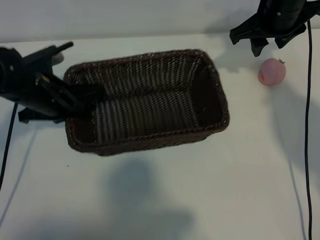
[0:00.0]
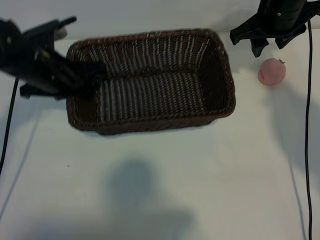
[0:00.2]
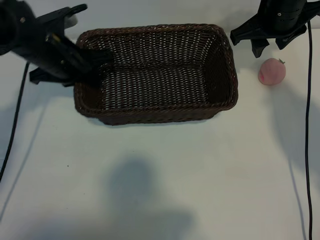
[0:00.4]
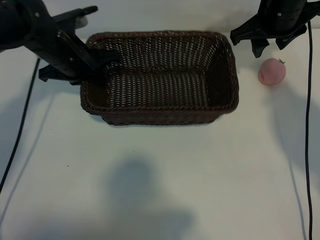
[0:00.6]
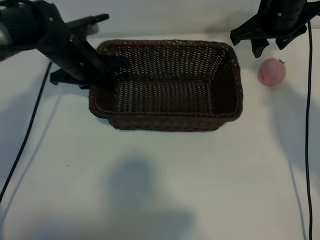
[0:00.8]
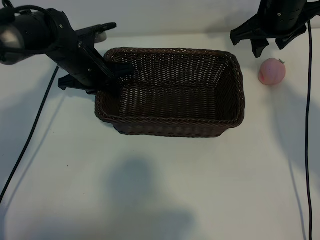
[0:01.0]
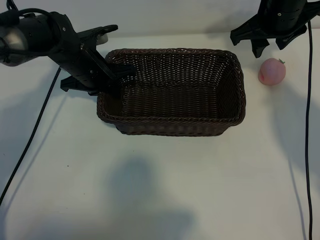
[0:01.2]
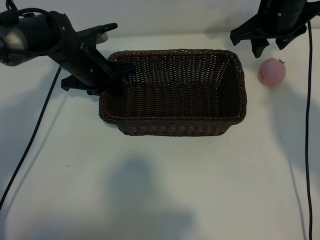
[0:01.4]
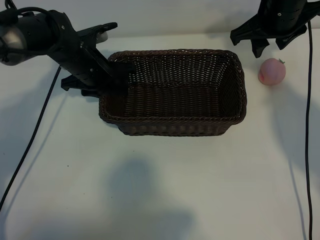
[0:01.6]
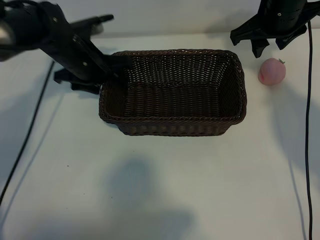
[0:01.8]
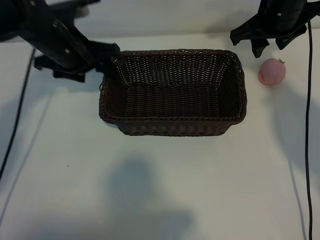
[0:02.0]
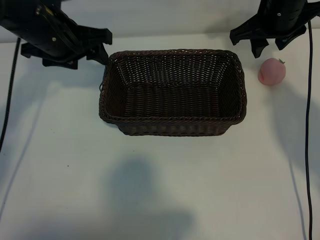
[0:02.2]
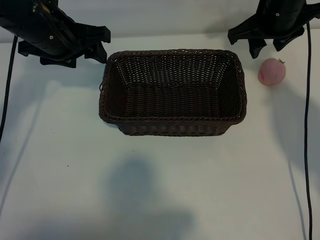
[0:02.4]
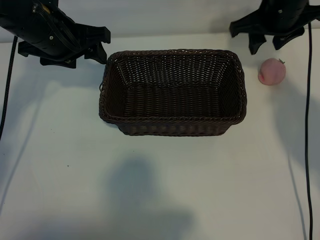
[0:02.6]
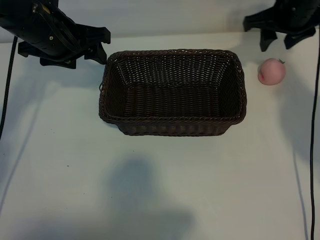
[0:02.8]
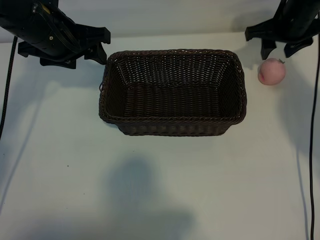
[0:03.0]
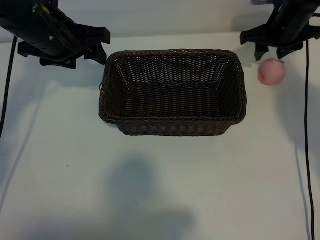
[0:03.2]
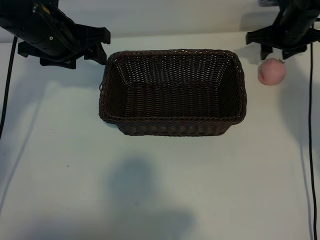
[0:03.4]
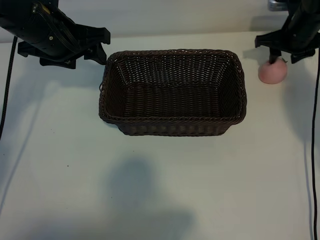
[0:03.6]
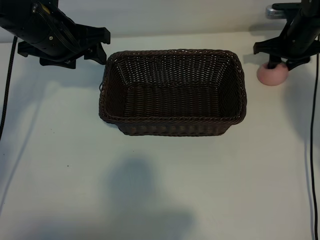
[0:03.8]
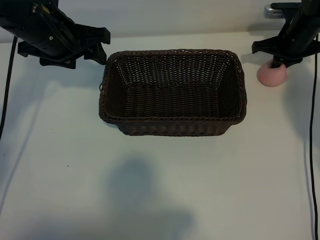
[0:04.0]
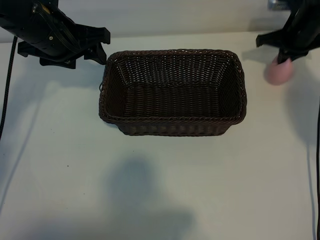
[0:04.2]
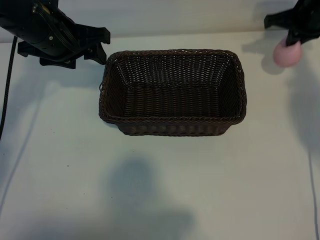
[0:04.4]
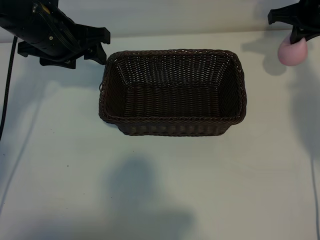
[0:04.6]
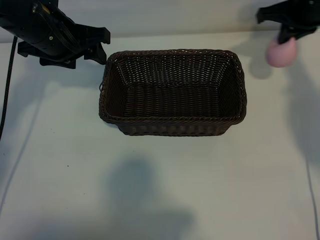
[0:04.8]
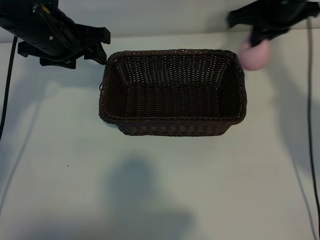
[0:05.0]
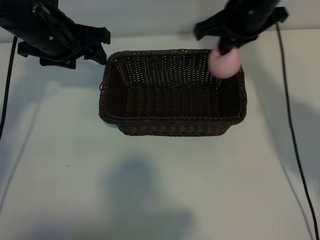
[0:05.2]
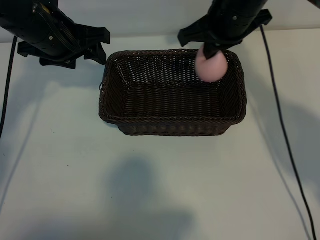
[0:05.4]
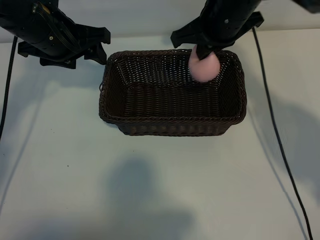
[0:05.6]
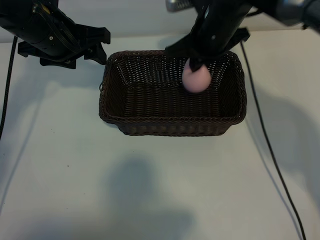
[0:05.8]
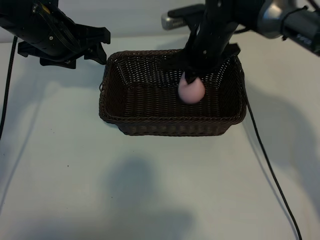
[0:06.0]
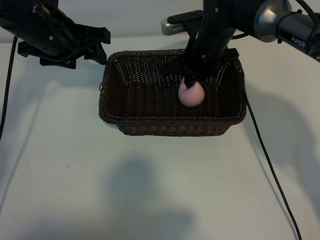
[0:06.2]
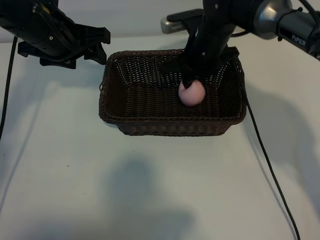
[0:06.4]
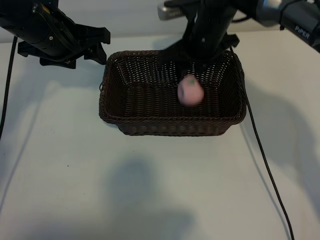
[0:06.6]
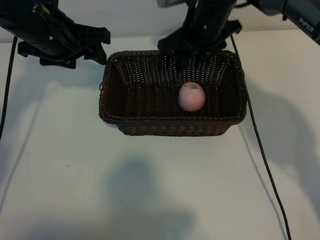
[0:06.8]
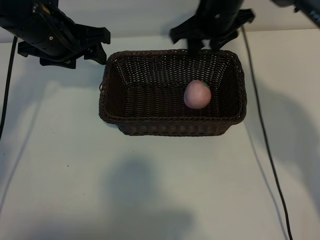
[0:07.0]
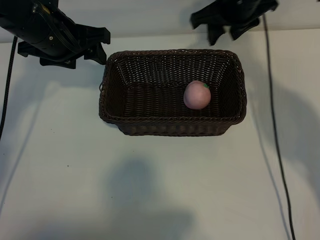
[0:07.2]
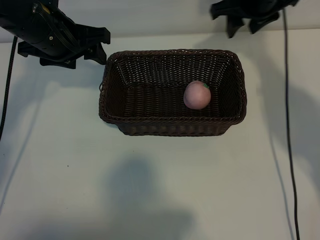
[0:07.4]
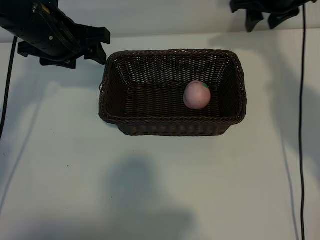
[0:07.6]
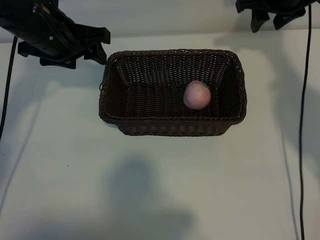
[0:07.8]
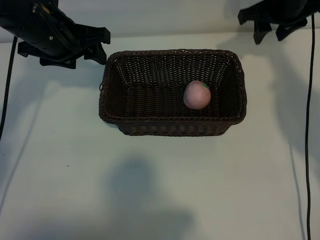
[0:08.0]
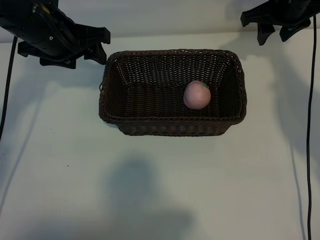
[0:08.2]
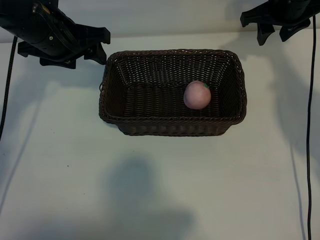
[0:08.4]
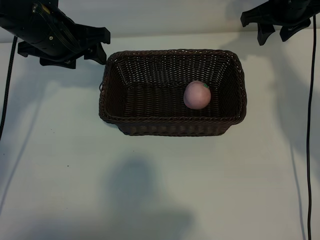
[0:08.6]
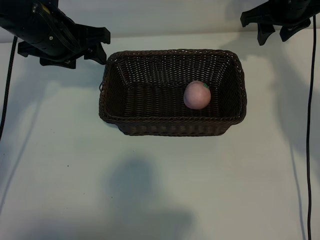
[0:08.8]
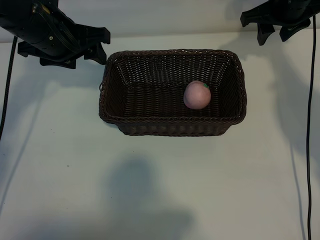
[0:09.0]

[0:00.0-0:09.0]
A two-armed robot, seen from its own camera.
Task of the whole recording: pick up the peach and put it into the basket.
Step, 0:00.0 to 0:01.8: Place the basket in the center of view with left gripper.
Step, 0:02.0 to 0:04.0: Grasp the peach with right gripper.
Step, 0:04.2 to 0:06.6: Place the peach in the basket with right gripper.

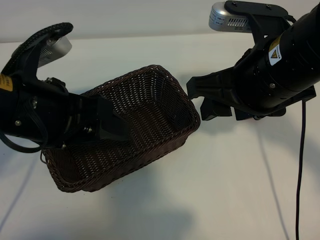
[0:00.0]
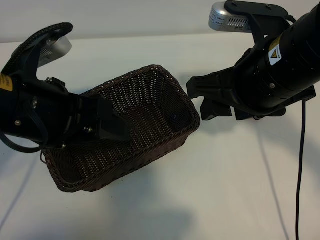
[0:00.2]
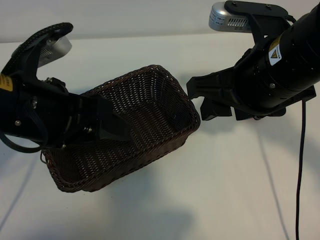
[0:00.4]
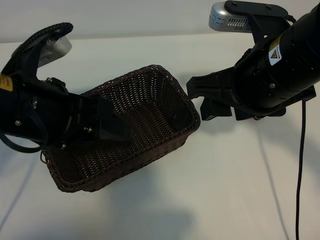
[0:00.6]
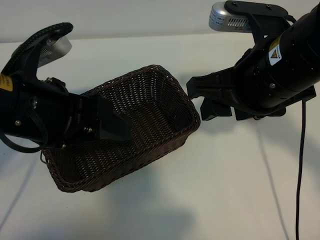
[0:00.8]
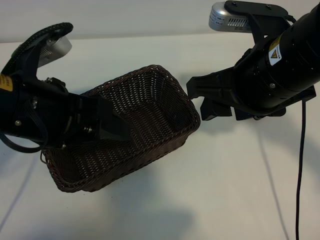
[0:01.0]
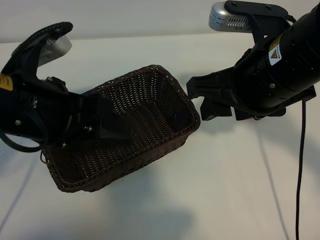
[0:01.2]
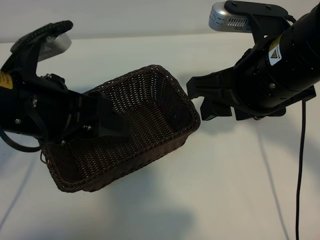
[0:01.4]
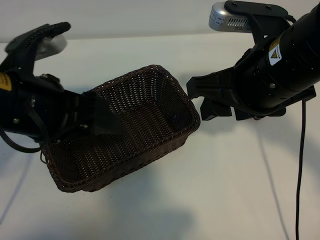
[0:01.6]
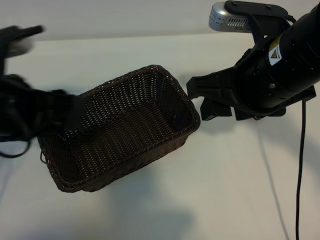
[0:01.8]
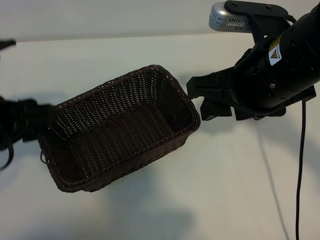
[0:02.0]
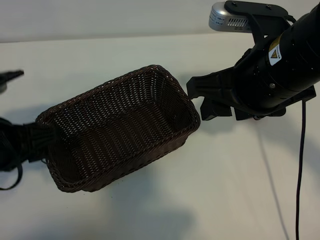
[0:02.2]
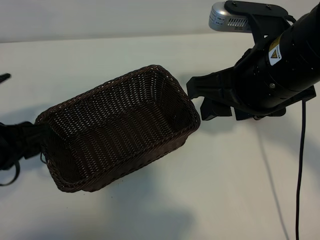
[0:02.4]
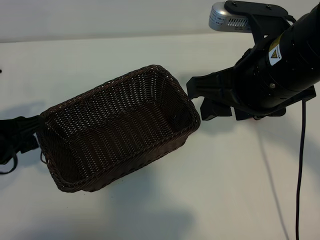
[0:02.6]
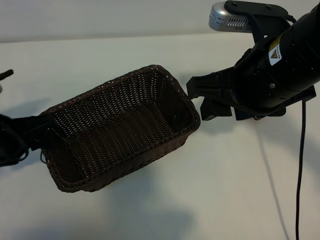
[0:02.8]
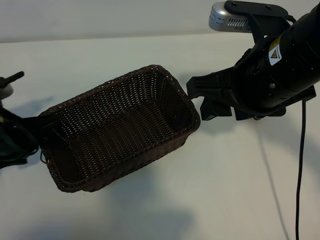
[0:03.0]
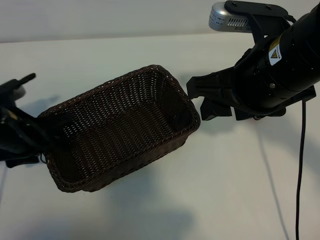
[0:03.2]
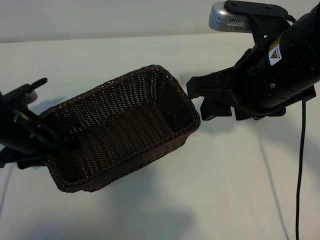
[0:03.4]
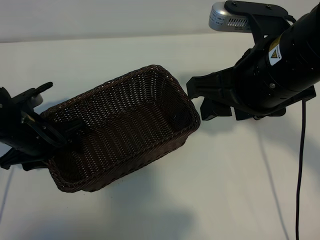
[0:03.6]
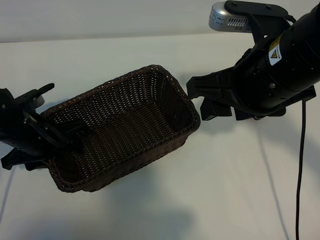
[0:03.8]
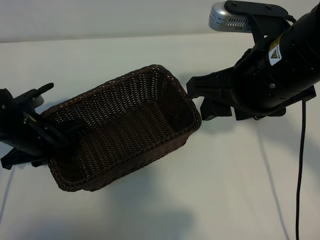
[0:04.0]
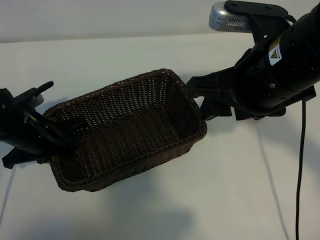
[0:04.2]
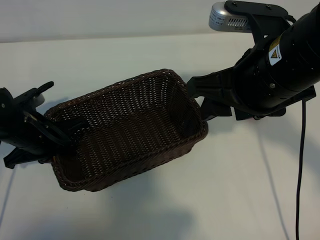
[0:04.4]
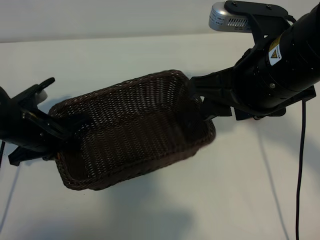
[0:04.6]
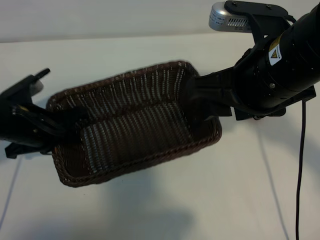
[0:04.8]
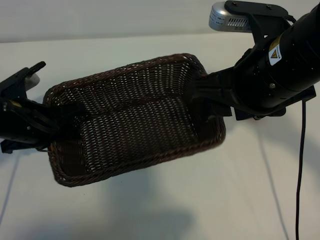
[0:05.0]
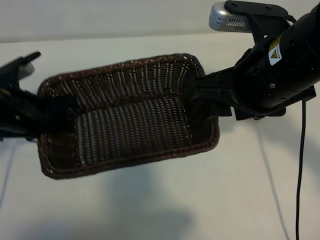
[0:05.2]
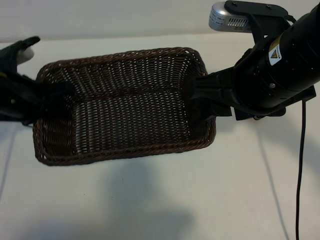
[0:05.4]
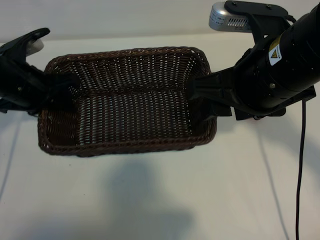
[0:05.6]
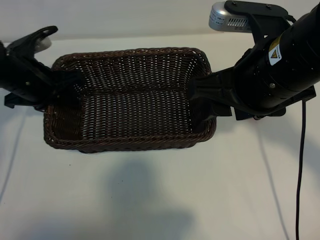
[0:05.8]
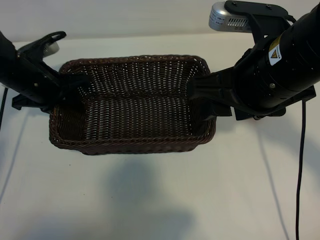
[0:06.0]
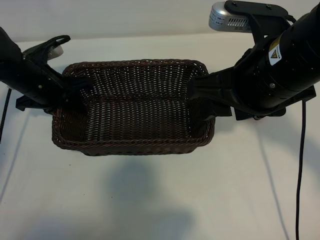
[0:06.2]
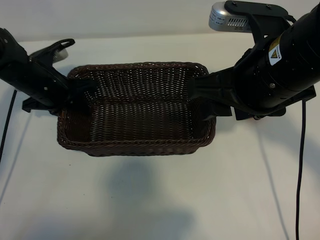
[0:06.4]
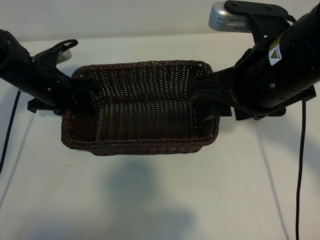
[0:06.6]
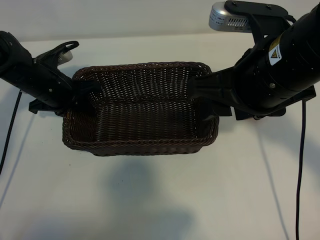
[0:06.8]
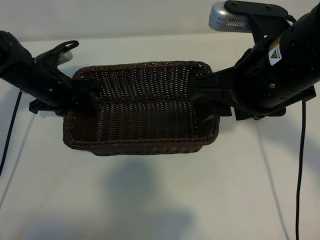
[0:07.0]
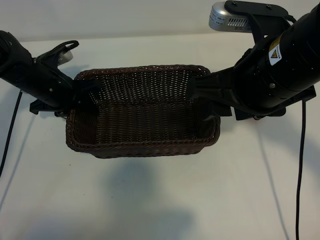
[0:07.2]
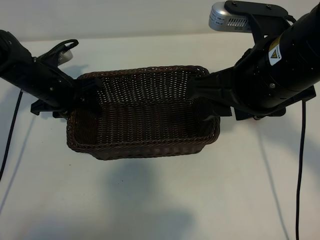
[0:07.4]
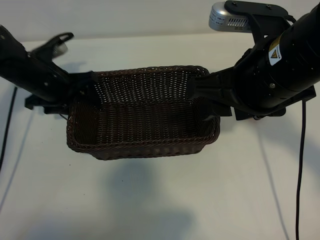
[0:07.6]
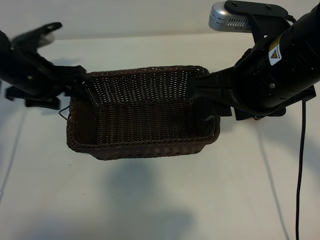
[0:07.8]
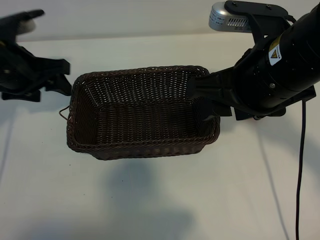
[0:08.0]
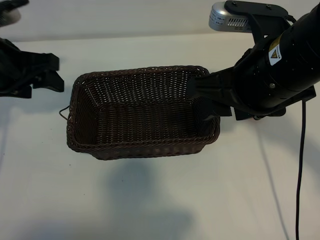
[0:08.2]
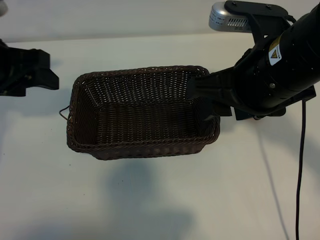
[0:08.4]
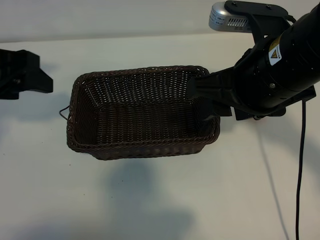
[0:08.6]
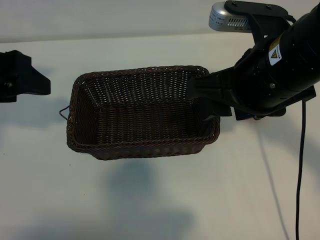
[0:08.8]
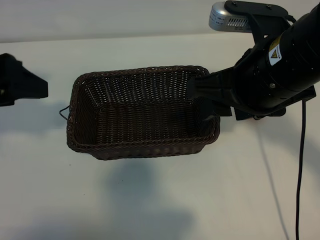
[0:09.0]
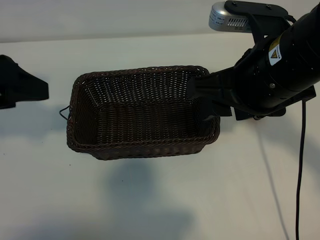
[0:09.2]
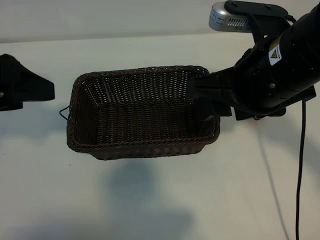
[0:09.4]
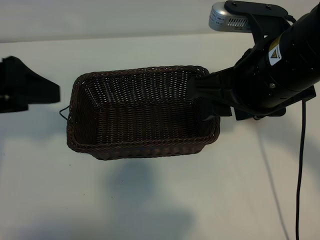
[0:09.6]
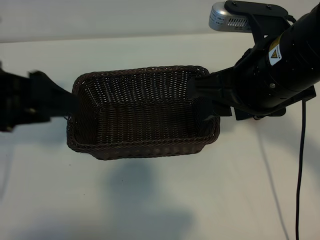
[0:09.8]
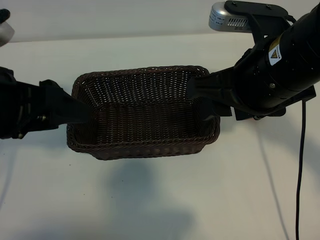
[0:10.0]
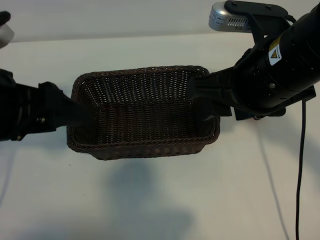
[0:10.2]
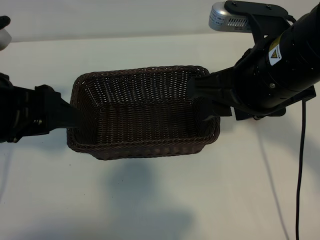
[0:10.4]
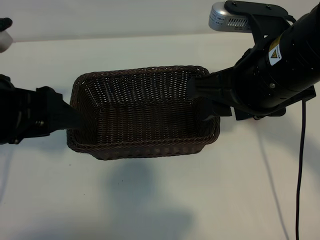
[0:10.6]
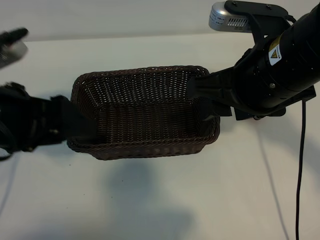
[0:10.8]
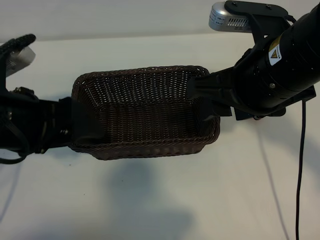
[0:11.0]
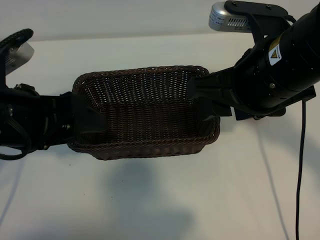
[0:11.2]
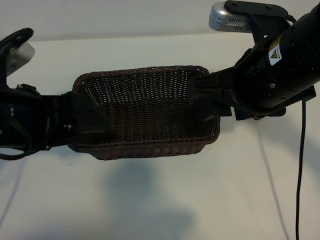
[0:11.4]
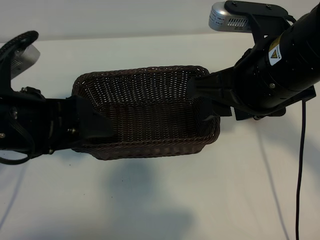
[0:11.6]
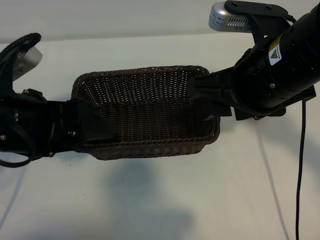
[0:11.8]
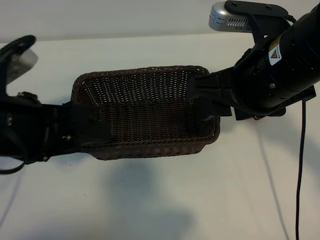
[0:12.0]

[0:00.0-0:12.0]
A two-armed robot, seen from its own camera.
Task of the whole recording: pick up the peach and put it into the basket.
Step, 0:01.2 to 0:04.0: Grasp the basket with left gripper.
Step, 0:04.2 to 0:07.6: Place the basket in the center of view with left gripper.

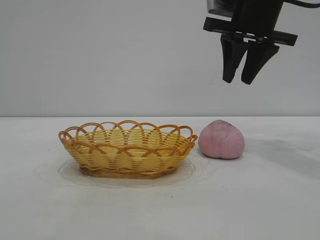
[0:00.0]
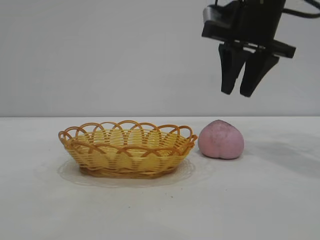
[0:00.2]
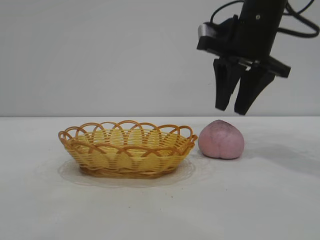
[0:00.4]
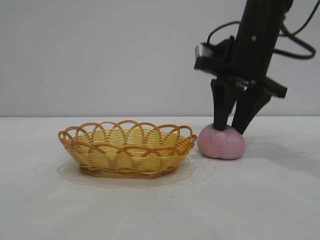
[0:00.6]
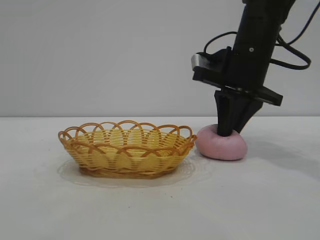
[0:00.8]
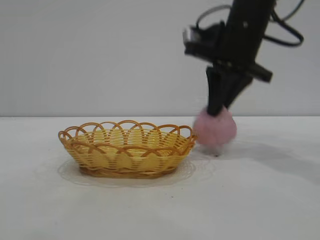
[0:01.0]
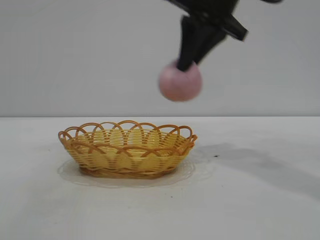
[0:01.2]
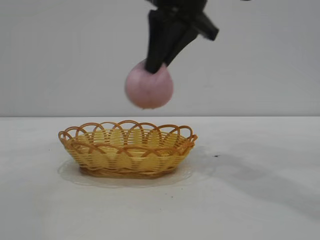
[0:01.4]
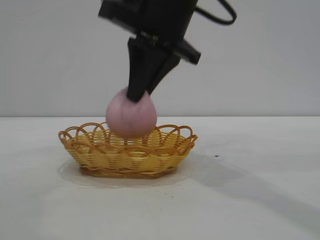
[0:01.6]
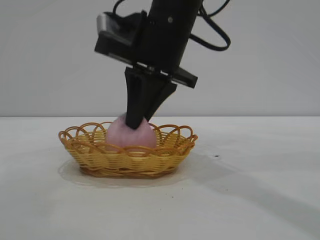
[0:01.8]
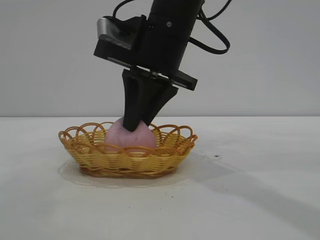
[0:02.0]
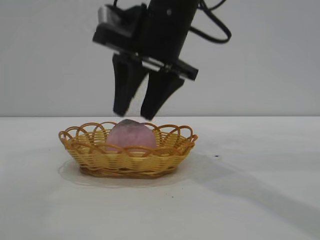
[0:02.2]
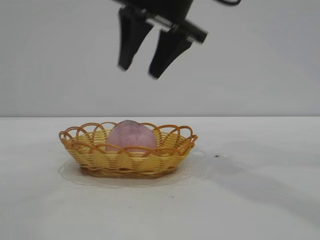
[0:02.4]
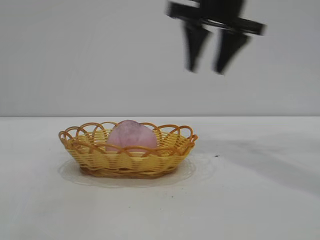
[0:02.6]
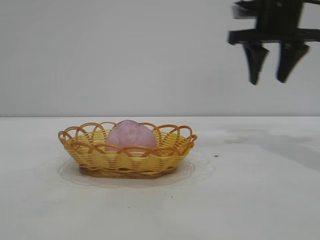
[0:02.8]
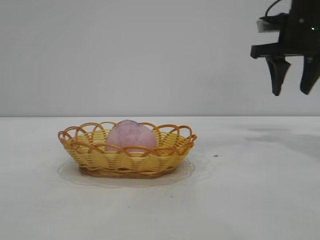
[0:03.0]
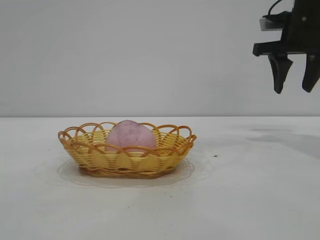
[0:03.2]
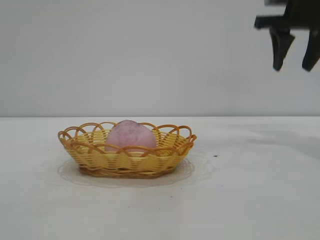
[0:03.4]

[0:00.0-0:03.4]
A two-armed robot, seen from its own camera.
Task of the whole recording: pick up the peach and put it into the basket.
Step, 0:01.2 to 0:02.4: place the peach into the basket.
